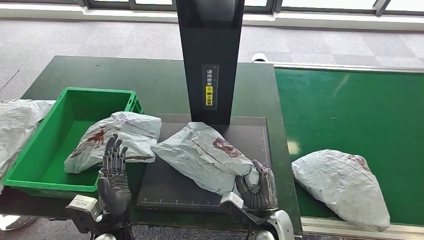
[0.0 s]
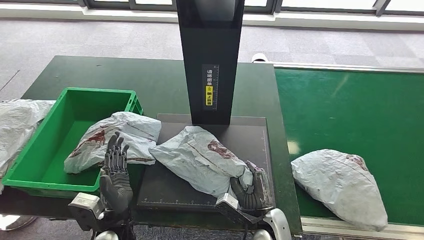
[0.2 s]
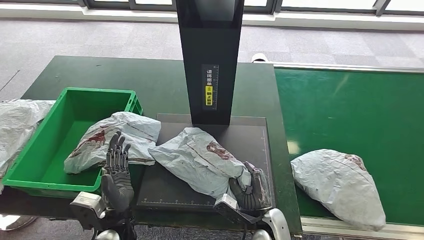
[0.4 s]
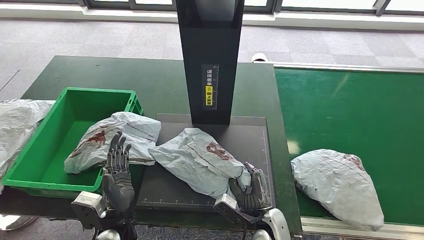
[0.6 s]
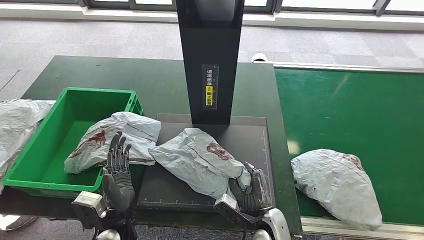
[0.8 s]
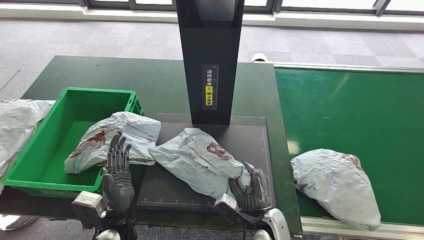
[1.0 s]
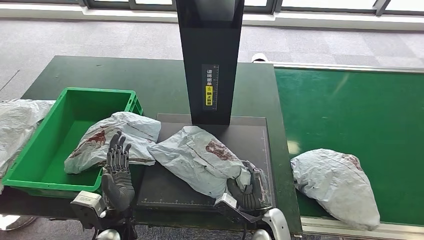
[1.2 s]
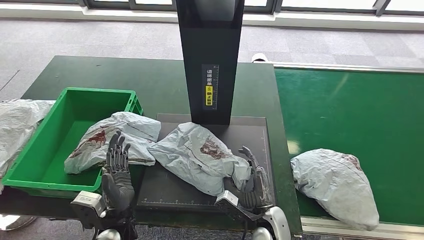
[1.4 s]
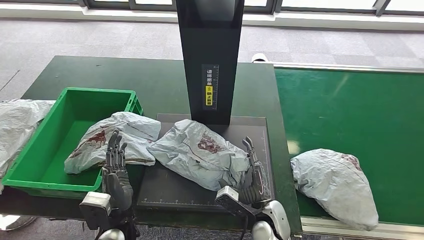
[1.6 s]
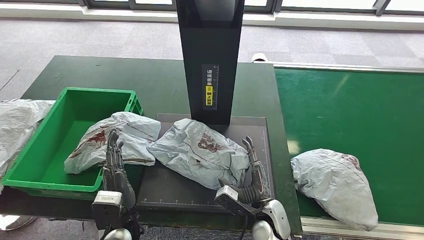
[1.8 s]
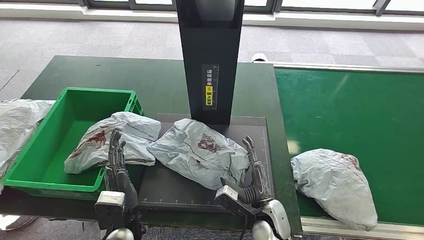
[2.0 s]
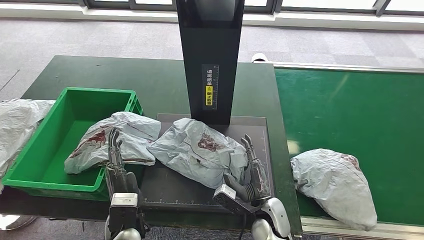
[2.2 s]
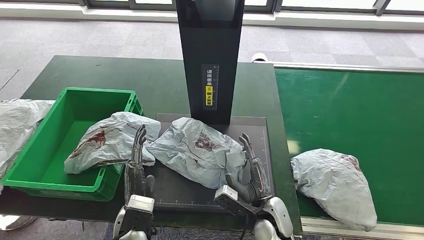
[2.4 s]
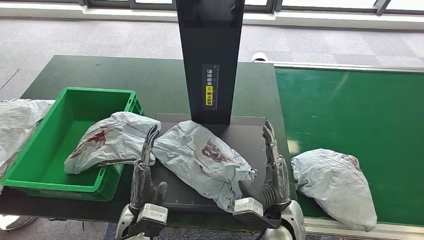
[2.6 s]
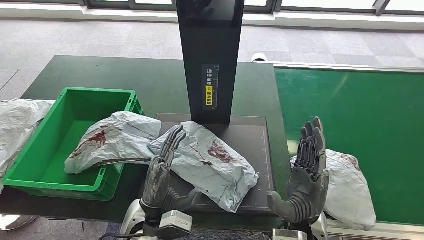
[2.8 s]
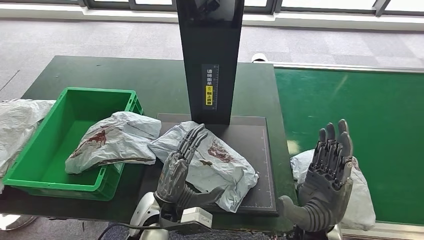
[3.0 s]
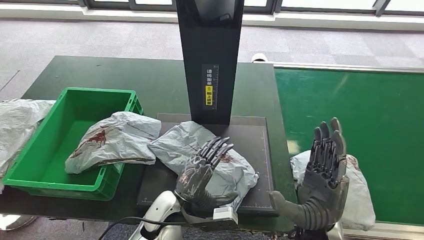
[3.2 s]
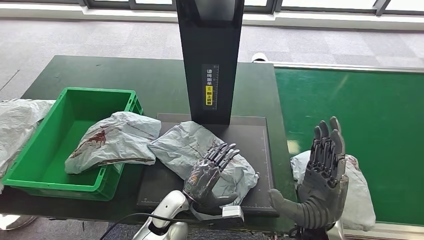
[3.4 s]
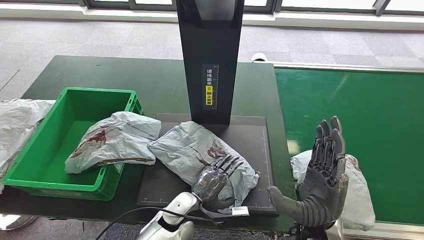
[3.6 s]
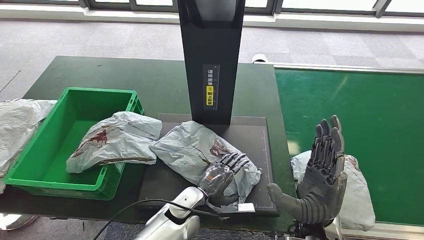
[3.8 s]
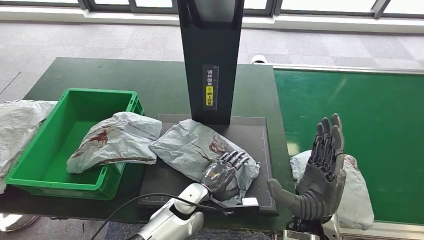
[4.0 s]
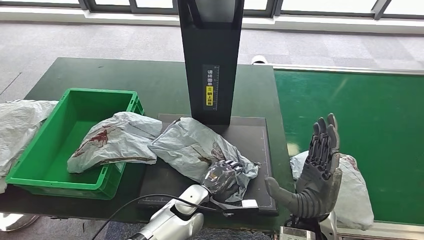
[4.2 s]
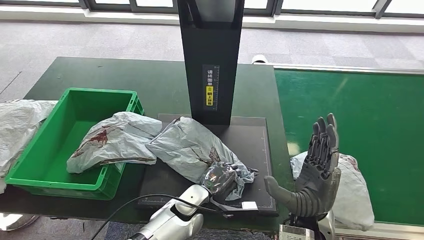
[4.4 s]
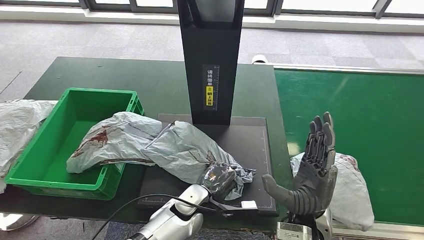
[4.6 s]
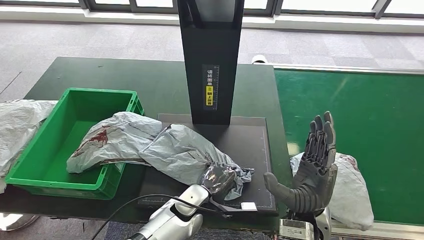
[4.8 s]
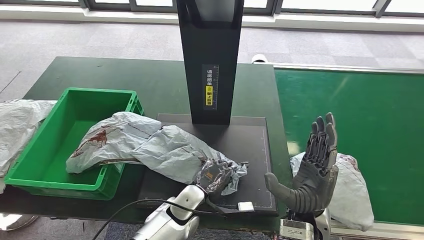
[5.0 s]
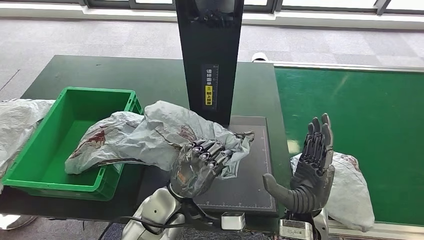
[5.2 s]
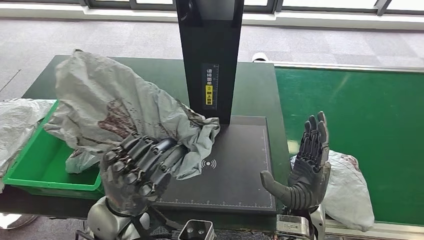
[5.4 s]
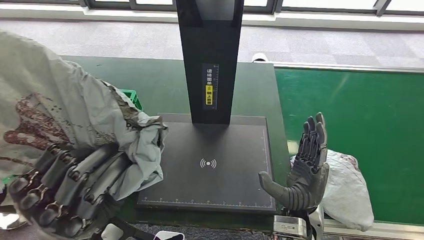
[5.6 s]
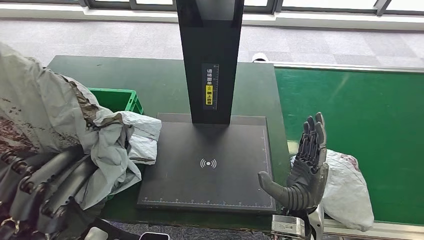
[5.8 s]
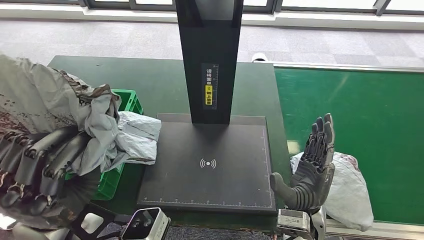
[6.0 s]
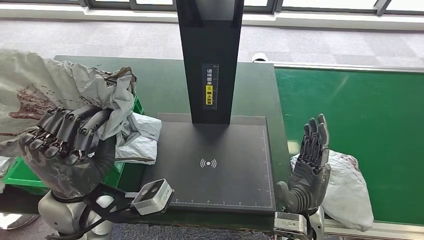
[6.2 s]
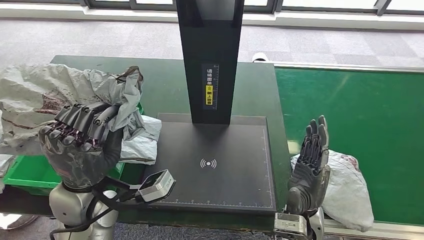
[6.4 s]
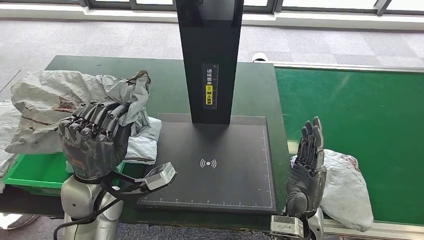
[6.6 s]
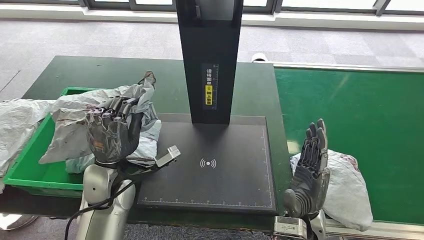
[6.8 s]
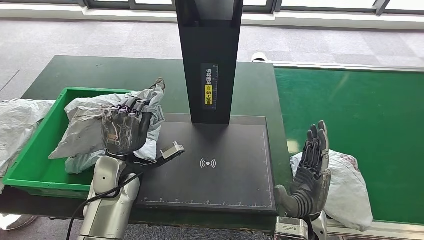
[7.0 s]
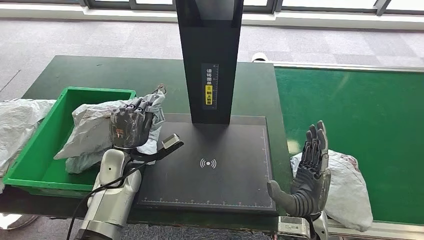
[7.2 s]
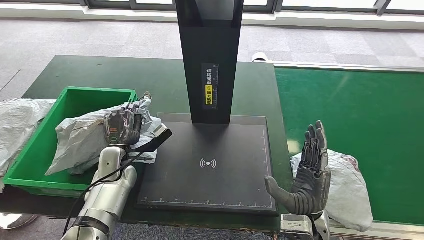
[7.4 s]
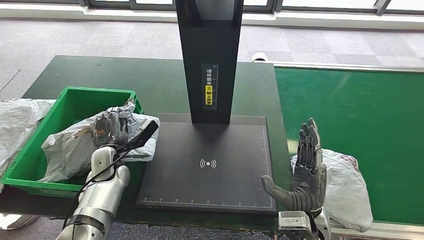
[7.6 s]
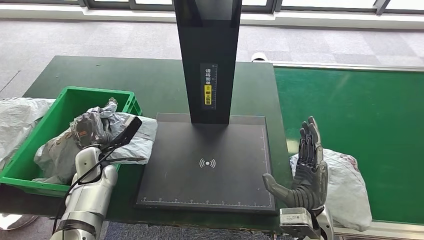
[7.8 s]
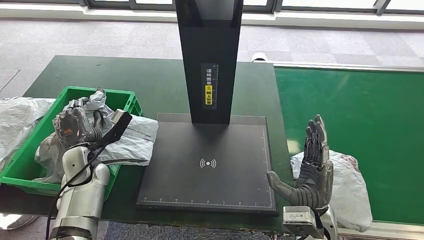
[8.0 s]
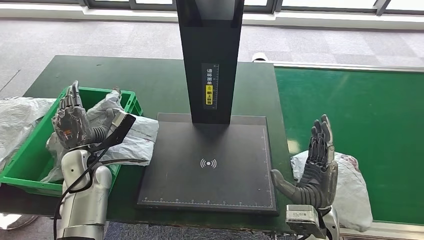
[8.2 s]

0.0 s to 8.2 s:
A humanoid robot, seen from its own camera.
Step, 0.0 to 3.2 s: Place the parcel onto the inbound machine.
Step, 3.4 to 5.8 s: Pick up the parcel from the inbound machine.
Step, 6.0 to 8.2 s: Place the parcel into the delivery box.
0.0 to 1.6 s: The hands make only small movements.
1.6 to 3.2 s: The right hand goes approximately 15 cm upward, while the left hand travels to the right by approximately 10 cm.
3.2 to 5.0 s: The left hand shifts some 5 cm downward.
6.6 to 8.2 s: The left hand shifts about 15 cm downward, to the left and forward.

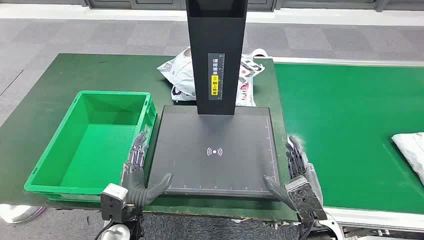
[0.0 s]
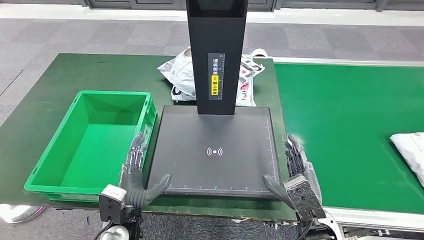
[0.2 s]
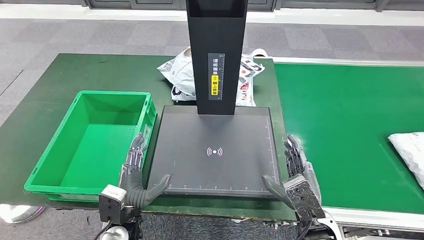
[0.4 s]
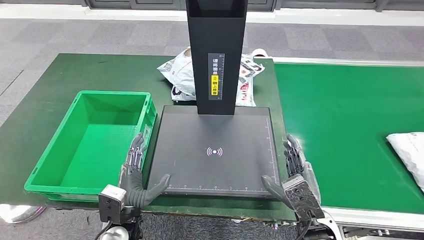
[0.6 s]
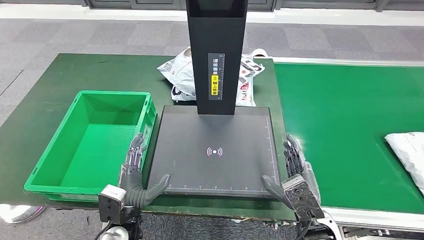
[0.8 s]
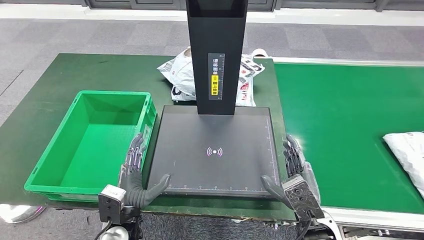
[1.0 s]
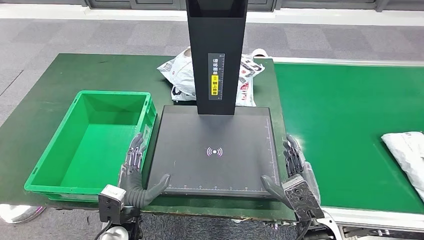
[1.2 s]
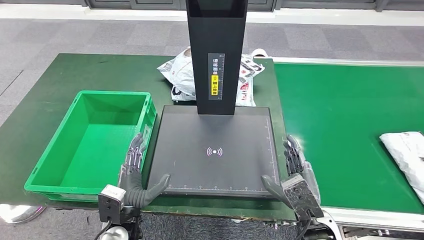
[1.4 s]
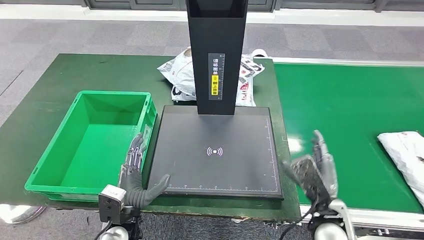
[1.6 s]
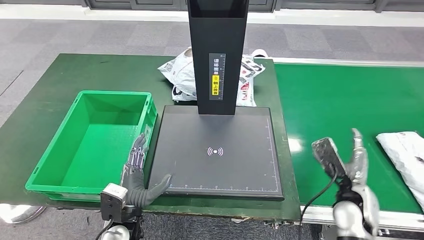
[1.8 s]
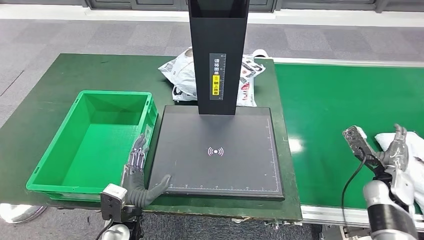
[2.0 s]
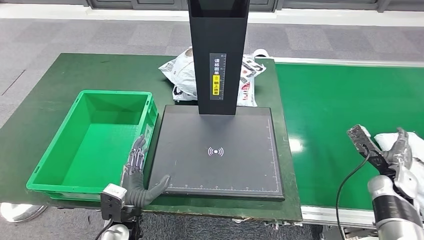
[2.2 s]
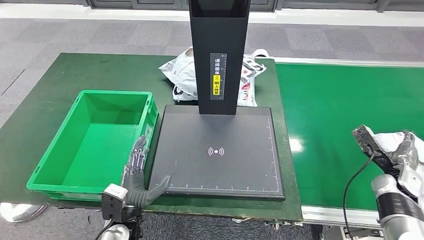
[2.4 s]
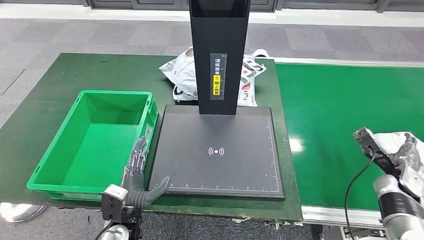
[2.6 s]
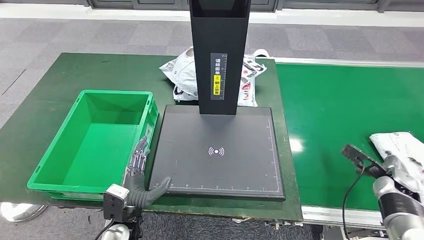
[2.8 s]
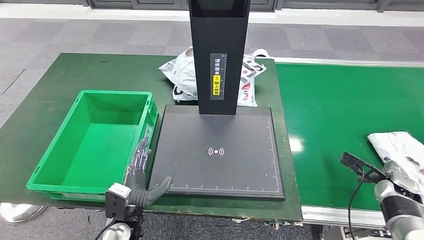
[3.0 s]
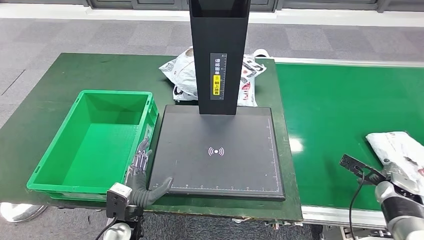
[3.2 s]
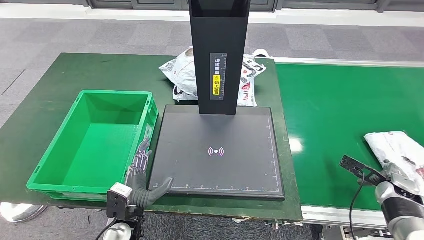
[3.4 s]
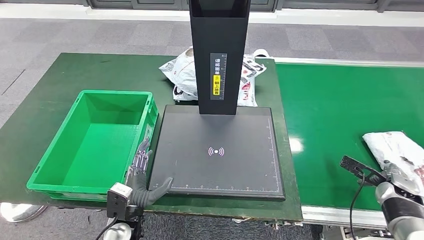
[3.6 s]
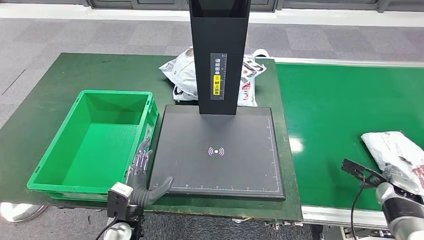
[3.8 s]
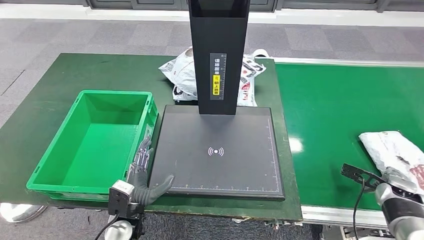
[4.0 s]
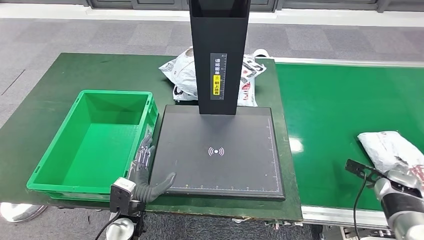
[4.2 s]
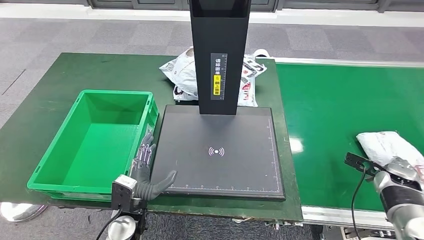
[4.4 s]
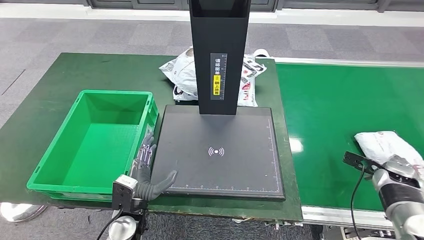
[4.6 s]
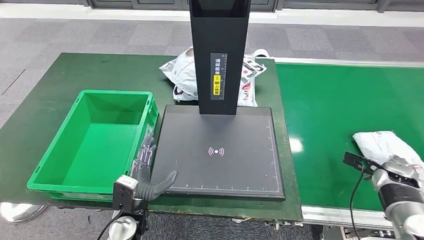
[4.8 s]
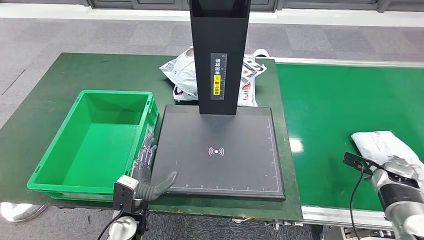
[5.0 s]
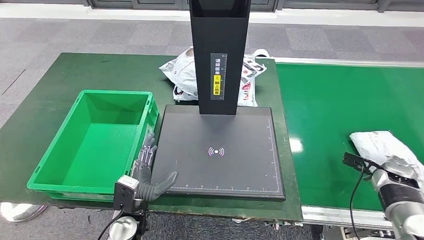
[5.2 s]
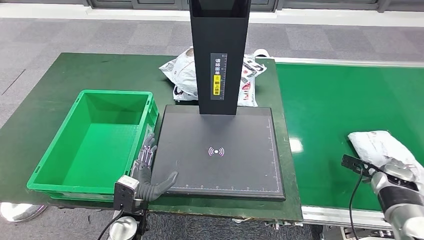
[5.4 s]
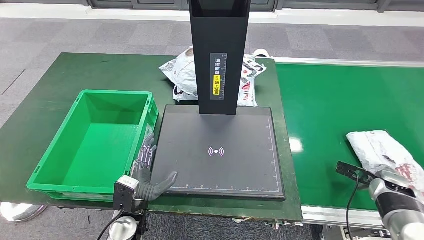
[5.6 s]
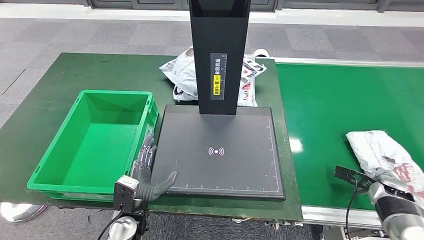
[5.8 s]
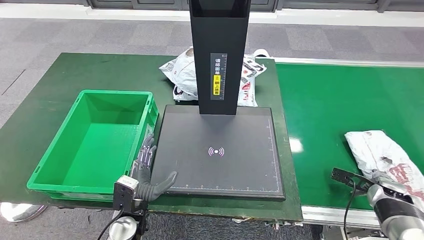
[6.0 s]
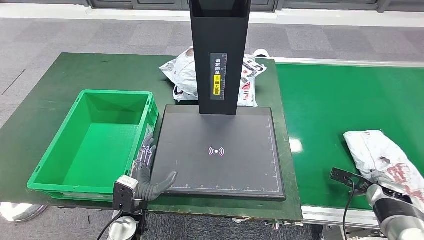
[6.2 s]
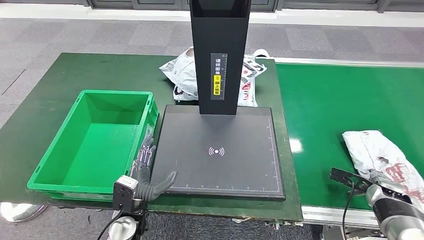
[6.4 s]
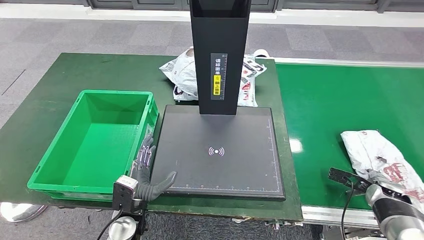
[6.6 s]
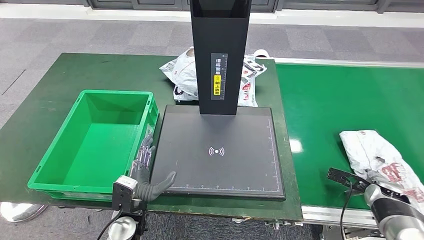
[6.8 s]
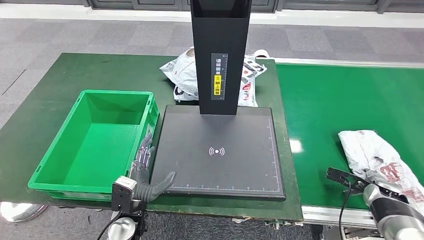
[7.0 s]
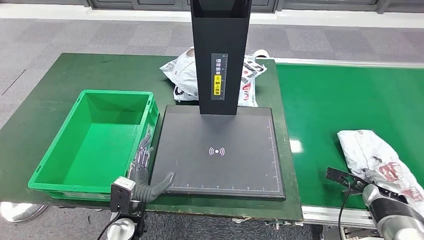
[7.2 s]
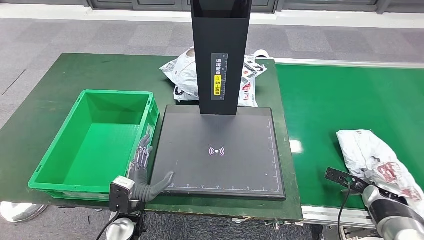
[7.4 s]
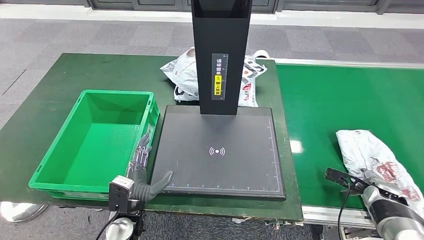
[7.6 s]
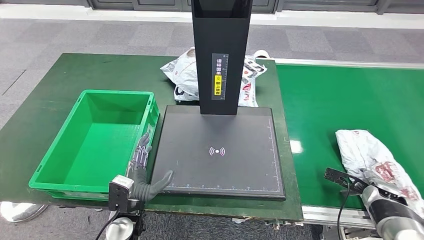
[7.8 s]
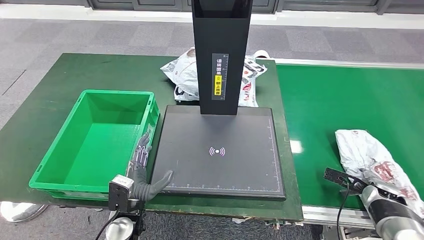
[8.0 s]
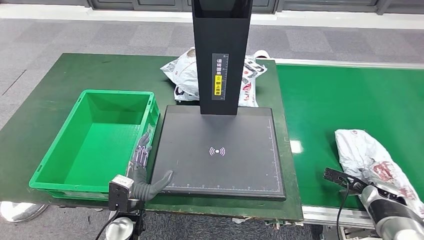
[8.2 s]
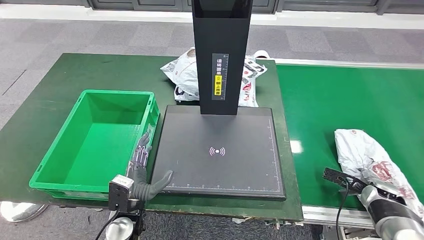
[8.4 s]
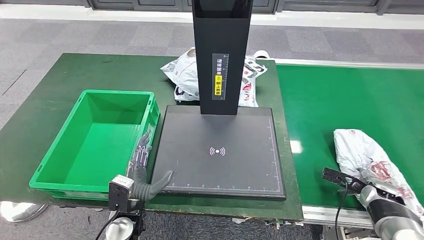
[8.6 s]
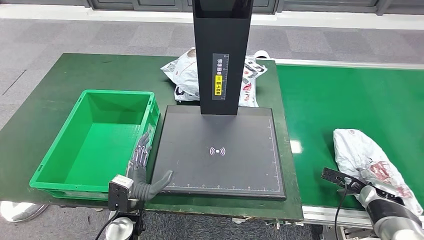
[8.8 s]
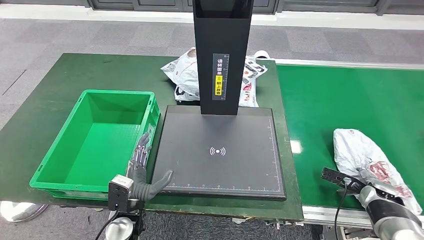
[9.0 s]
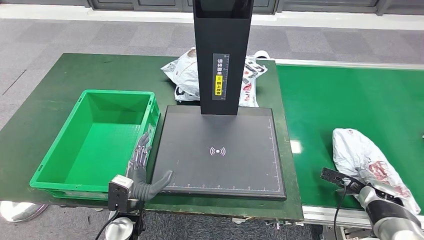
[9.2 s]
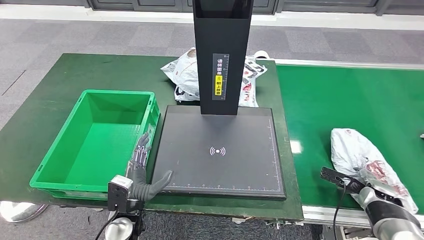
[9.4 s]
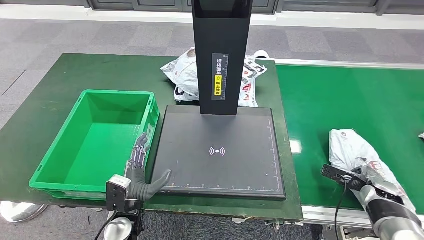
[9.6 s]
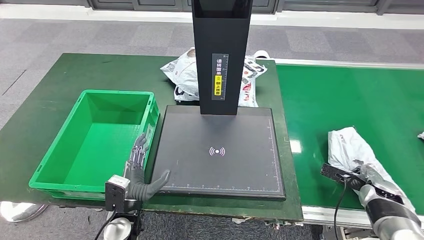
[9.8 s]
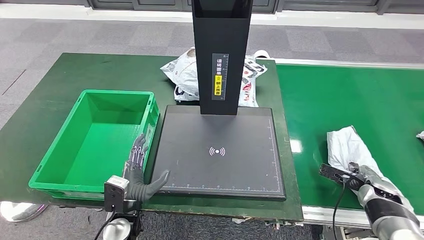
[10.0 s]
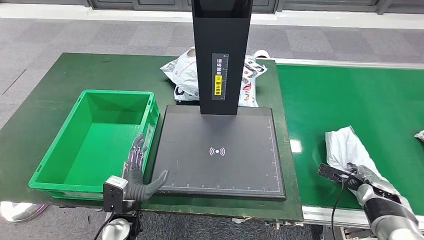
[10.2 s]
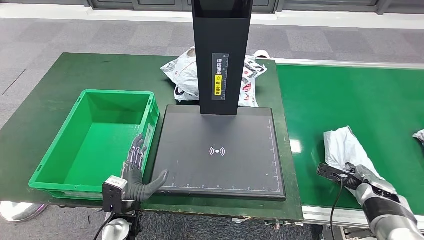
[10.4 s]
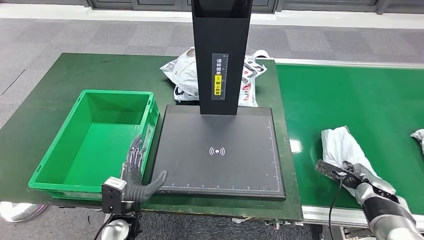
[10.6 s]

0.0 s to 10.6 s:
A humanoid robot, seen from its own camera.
1.6 to 3.0 s: The right hand travels to the right by some 25 cm.
3.0 to 4.6 s: The hands stay close to where they were, moving slightly.
4.6 to 6.0 s: The right hand shifts by roughly 5 cm.
6.0 to 7.6 s: Both hands stay about where they are.
7.6 to 9.0 s: The two hands keep their place.
9.0 to 10.6 s: The hands stay close to where they were, moving slightly.
